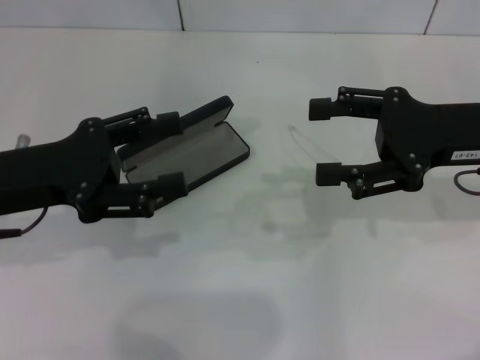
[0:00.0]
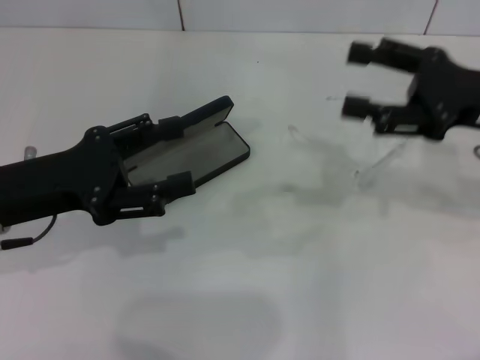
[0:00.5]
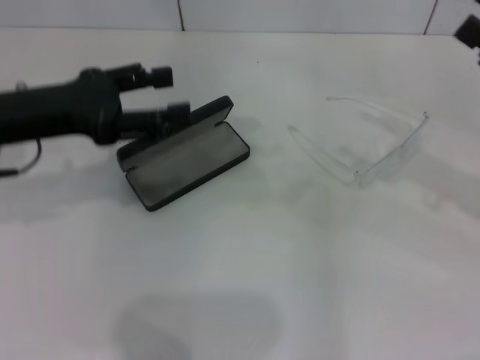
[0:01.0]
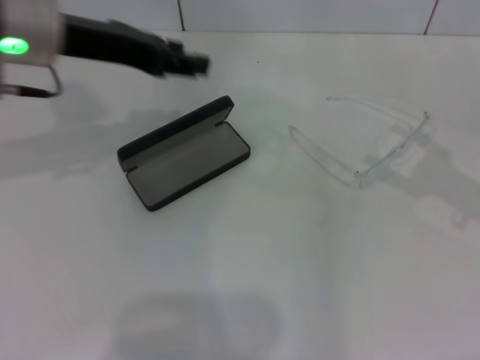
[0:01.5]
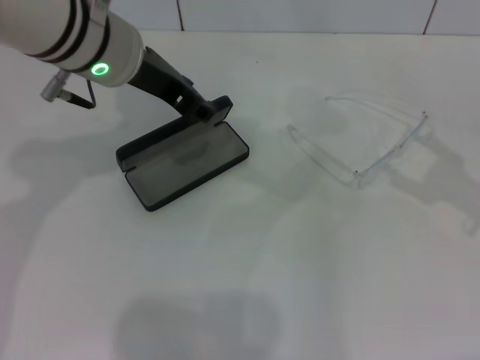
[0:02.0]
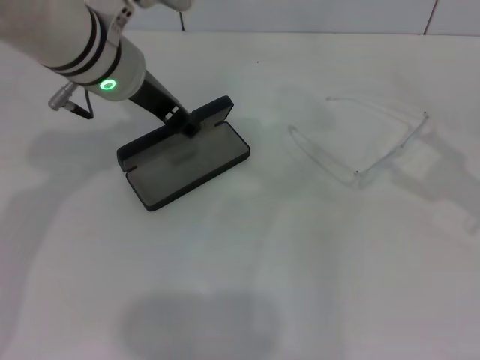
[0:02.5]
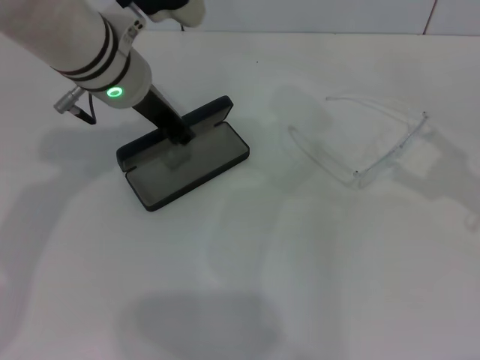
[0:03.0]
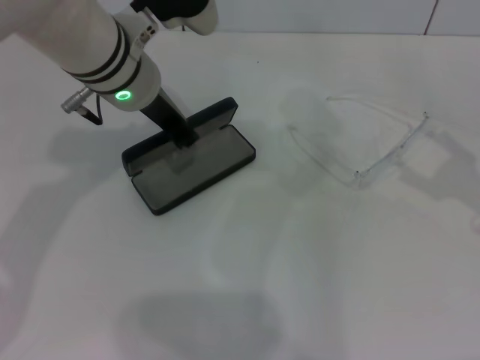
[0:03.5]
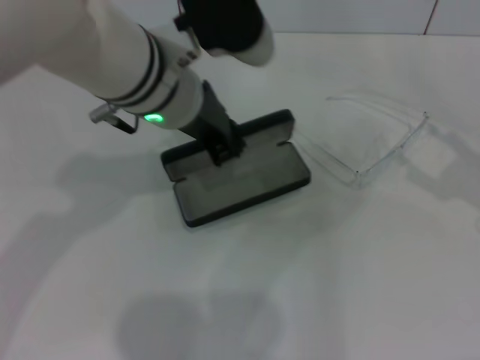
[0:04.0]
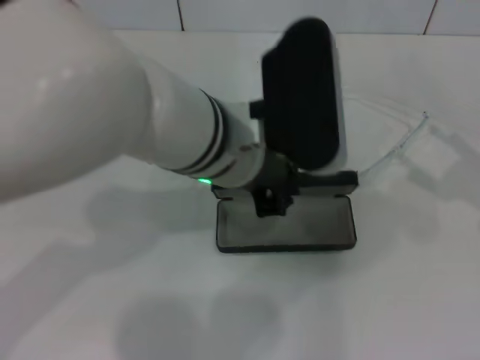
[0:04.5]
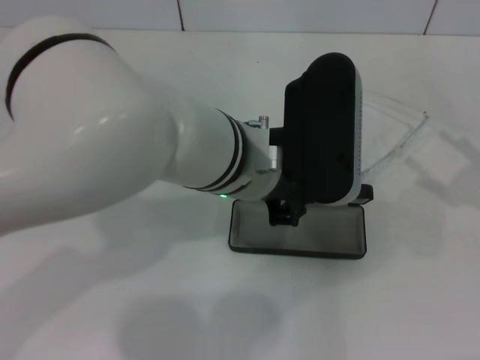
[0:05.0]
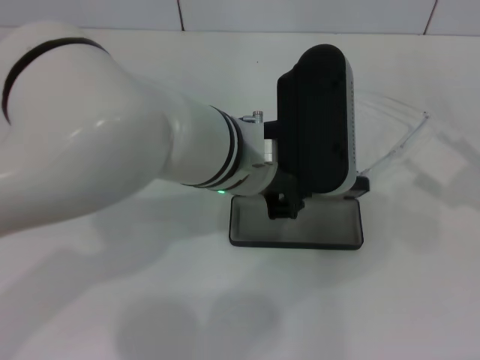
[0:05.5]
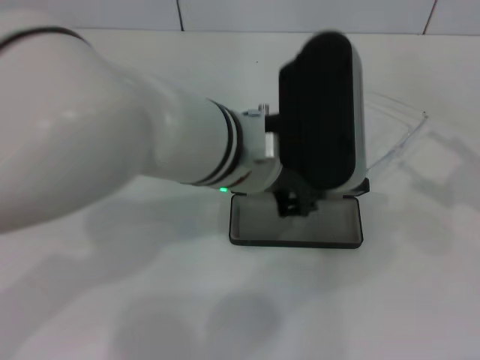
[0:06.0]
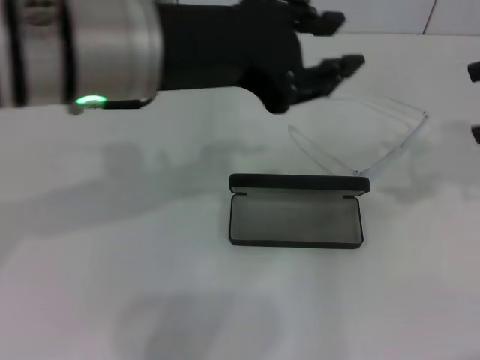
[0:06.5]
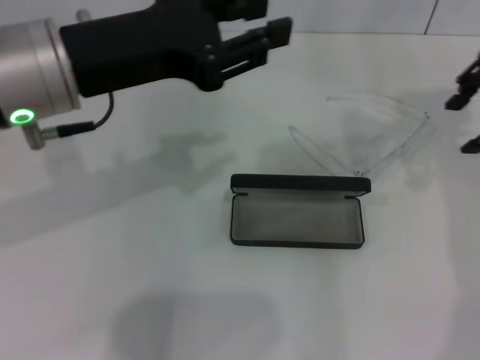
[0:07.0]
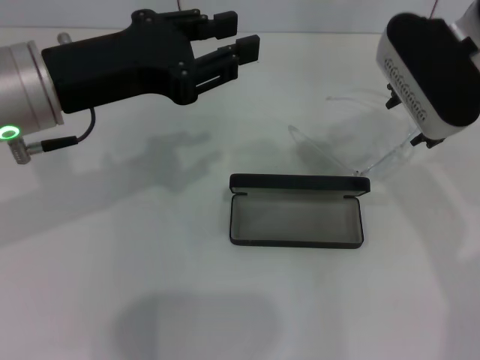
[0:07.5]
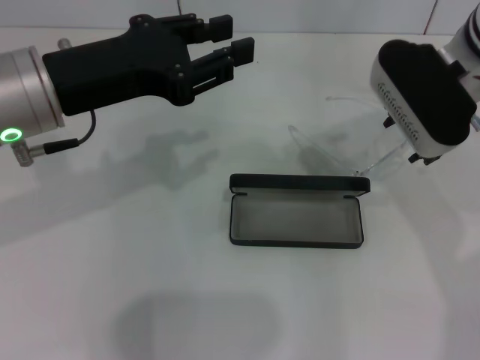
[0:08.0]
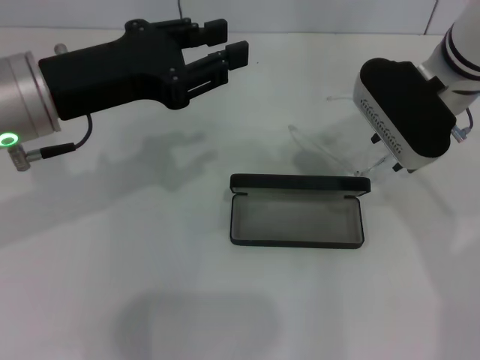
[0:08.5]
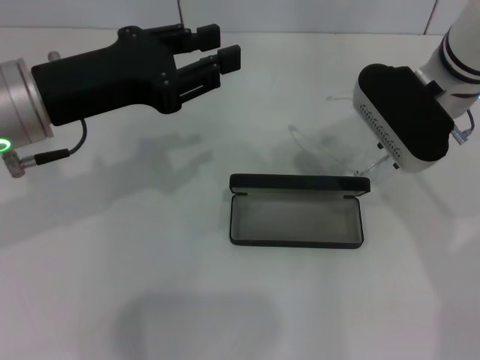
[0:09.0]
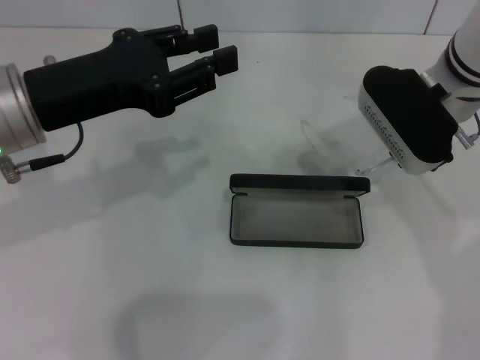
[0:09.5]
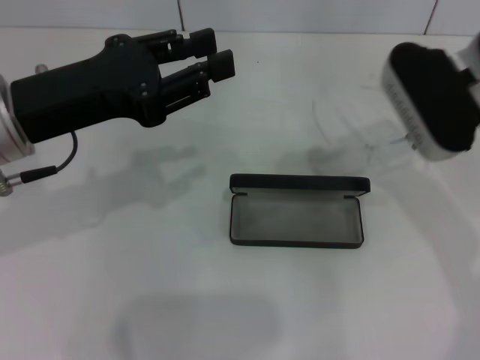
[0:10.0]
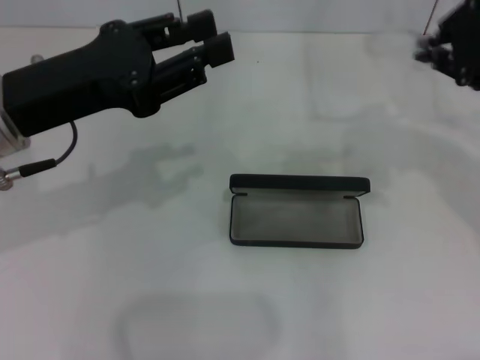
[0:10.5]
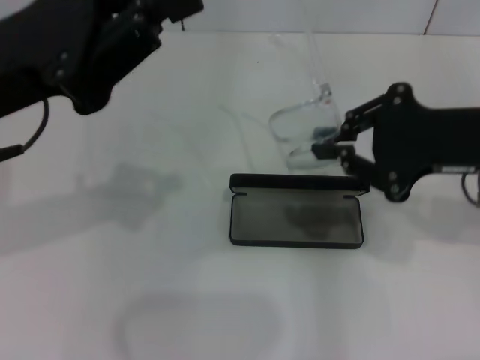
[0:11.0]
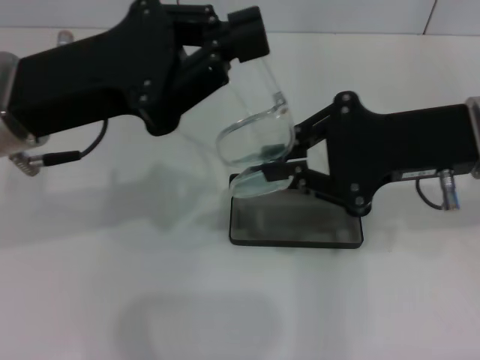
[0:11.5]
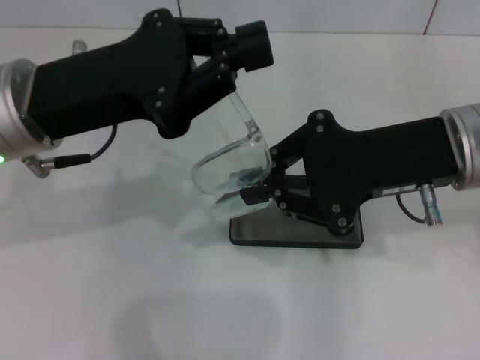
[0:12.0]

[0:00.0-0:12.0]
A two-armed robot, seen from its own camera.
Step, 0:00.0 to 0:03.0: Grab the glasses case with your left hand.
Step, 0:03.5 to 0:05.5: Place the glasses case in the center of the table with your left hand.
Step, 0:06.0 to 0:09.0: Grab the eyeglass frame with your right hand.
0:00.0 to 0:02.0: The left gripper goes roughly 20 cm to the right, forward and upward, and closes, while the right gripper shifts some 15 cm to the right and backward.
0:02.0 to 0:04.0: The left gripper goes some 5 cm to the right, and closes its fingers.
0:04.0 to 0:06.0: The left gripper travels backward and to the right by some 10 cm.
0:06.0 to 0:08.0: The right gripper heads to the left and forward, covering some 25 cm, and closes its fingers, while the left gripper shifts roughly 15 cm to the left.
0:08.0 to 0:10.0: The right gripper closes its fingers.
0:10.0 to 0:12.0: The left gripper closes up, while the right gripper shifts some 10 cm backward.

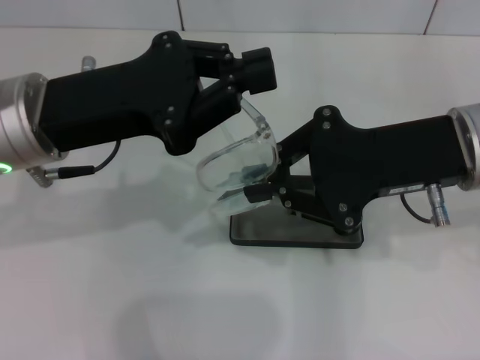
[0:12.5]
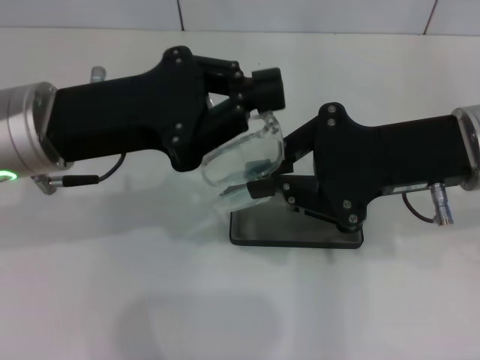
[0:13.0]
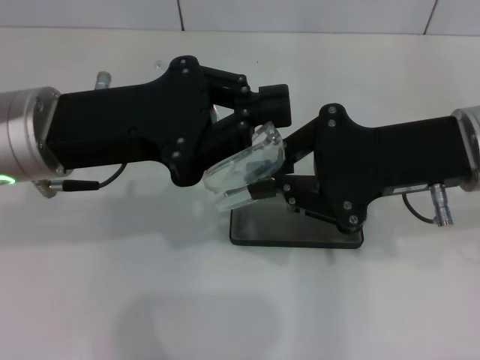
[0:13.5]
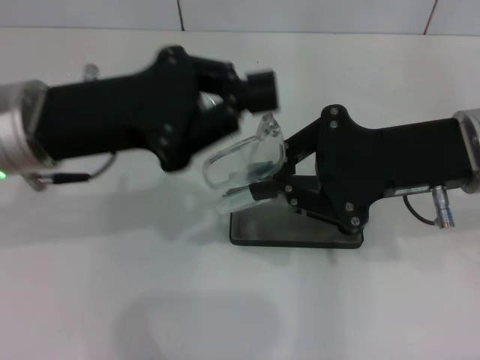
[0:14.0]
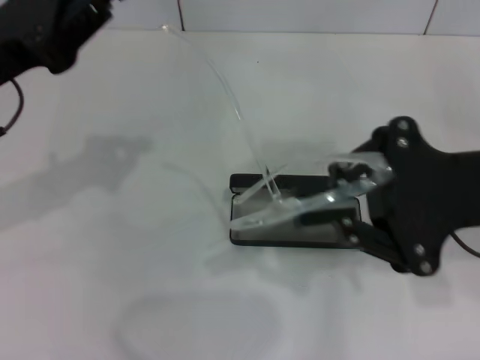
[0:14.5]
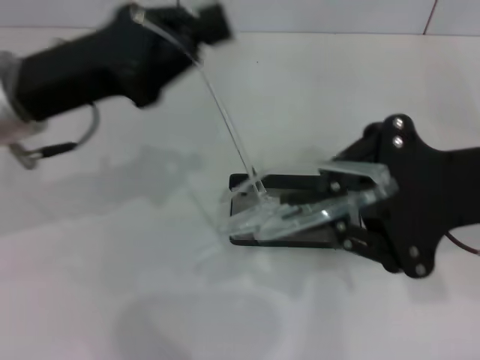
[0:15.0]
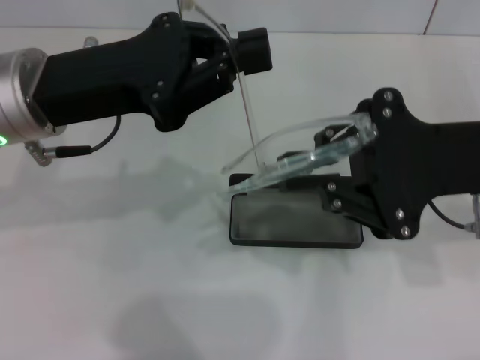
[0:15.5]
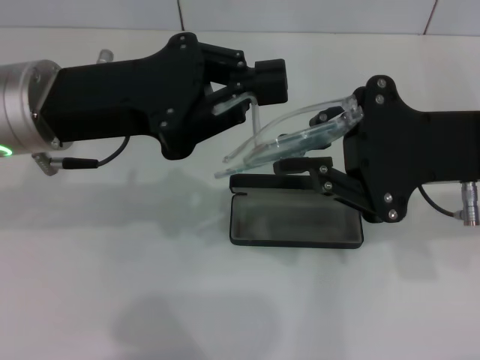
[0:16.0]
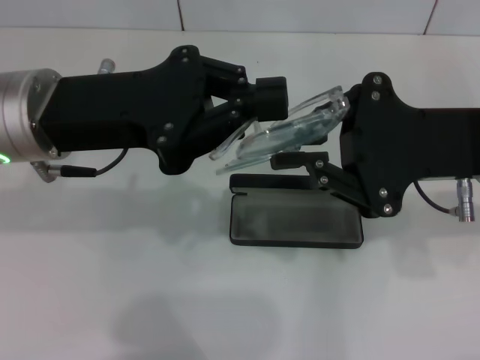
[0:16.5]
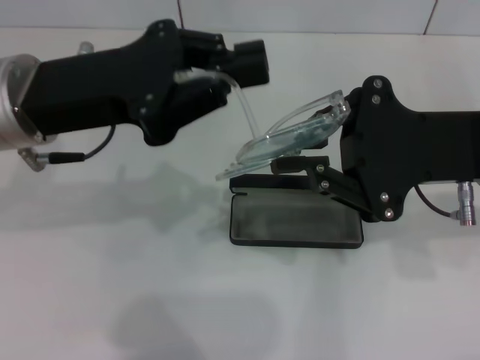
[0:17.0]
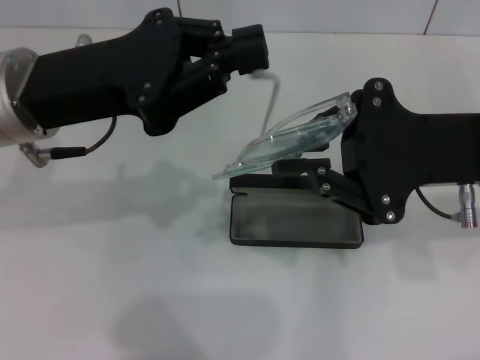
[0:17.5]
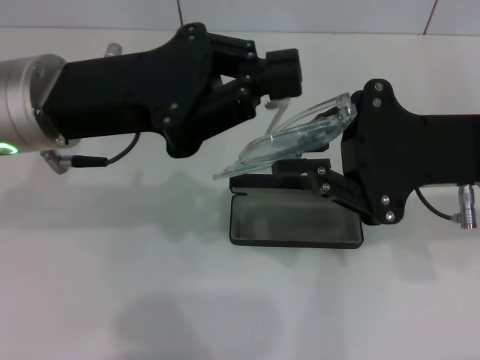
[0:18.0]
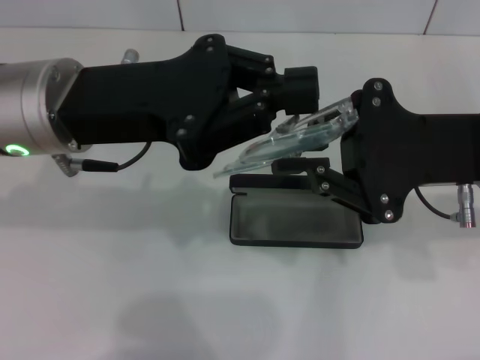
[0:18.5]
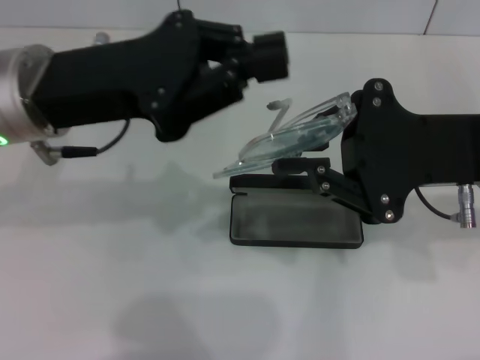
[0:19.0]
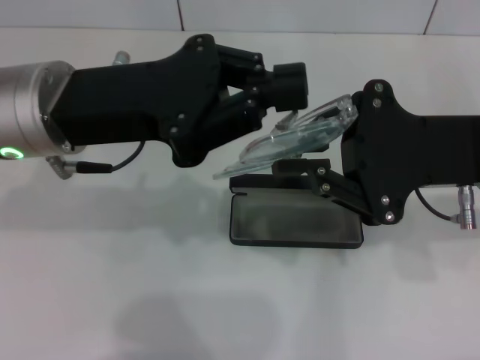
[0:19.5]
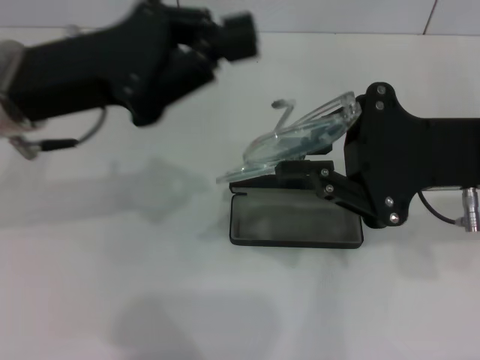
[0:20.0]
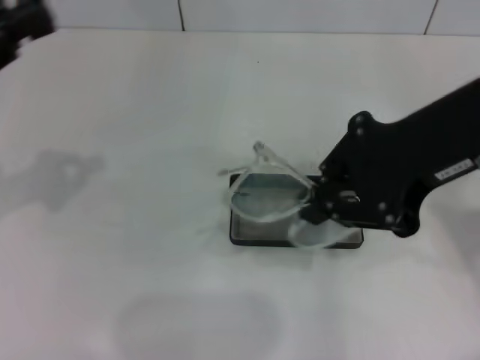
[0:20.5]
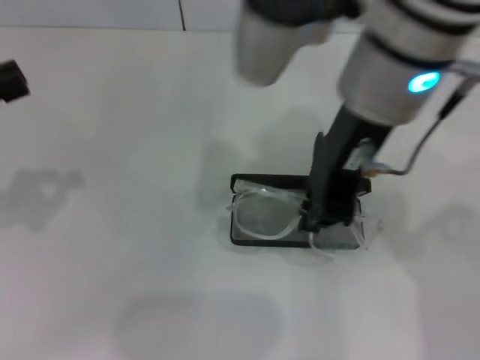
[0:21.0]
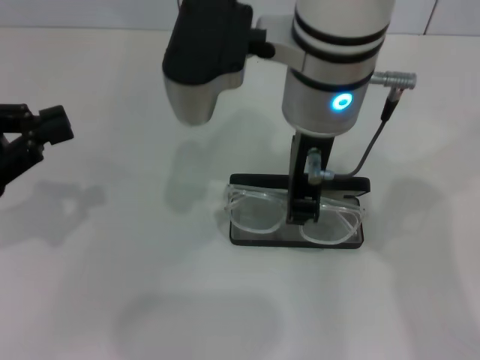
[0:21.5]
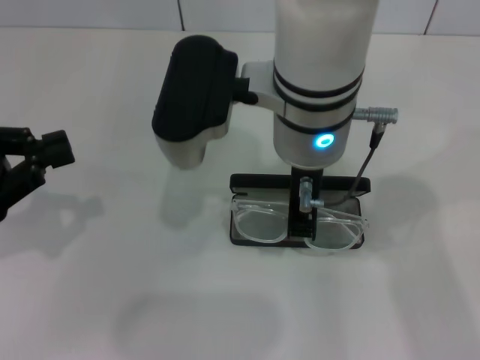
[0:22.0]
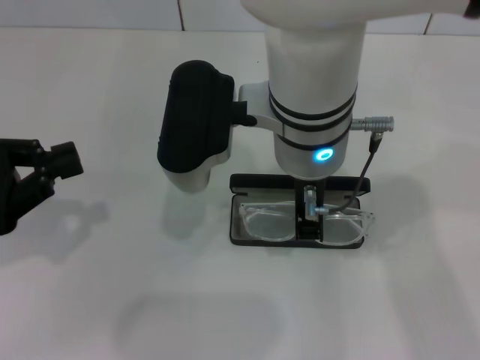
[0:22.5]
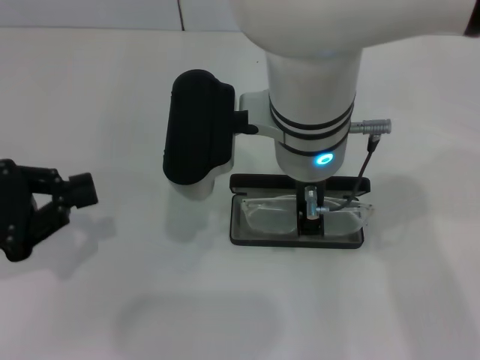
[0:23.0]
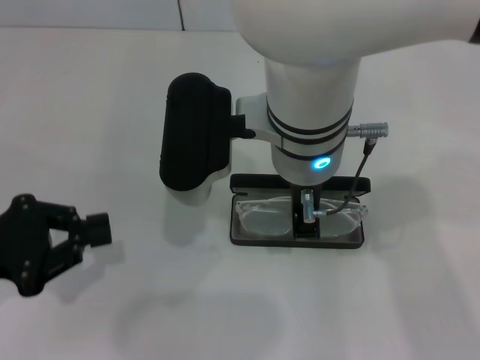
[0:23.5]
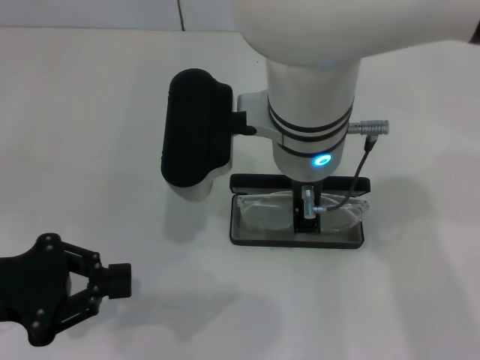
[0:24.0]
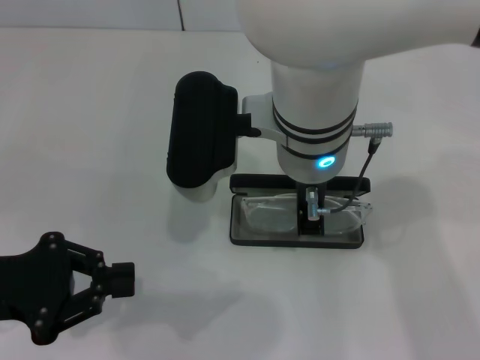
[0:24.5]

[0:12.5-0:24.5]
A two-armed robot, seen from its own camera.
Step, 0:12.5 to 0:19.5: Fold the frame with your left hand.
0:12.5 to 0:14.5: The left gripper heads to the left, covering about 5 cm.
0:14.5 to 0:16.5: The left gripper shifts roughly 5 cm to the right.
0:16.5 to 0:18.5: The grippers stay close to where they were, moving slightly.
0:18.5 to 0:20.5: The right gripper shifts some 10 cm upward; the left gripper heads to the left, covering some 15 cm.
0:20.5 to 0:22.5: The right gripper is displaced to the left by roughly 15 cm. Meanwhile the left gripper shifts about 5 cm downward.
0:22.5 to 0:24.5: The left gripper ends up about 5 cm from where it was.

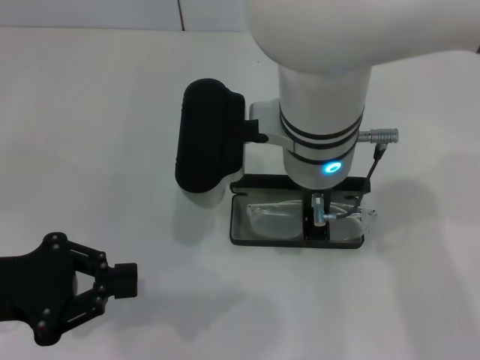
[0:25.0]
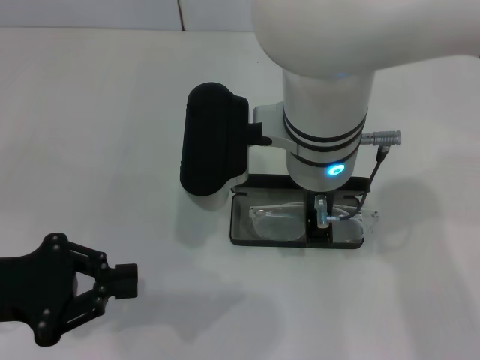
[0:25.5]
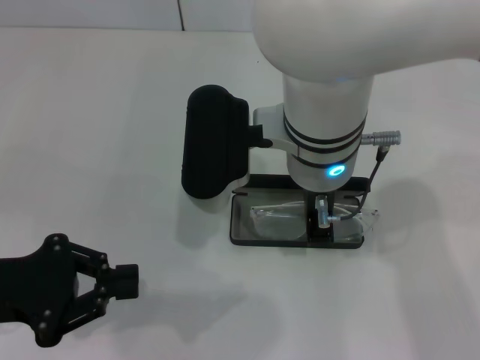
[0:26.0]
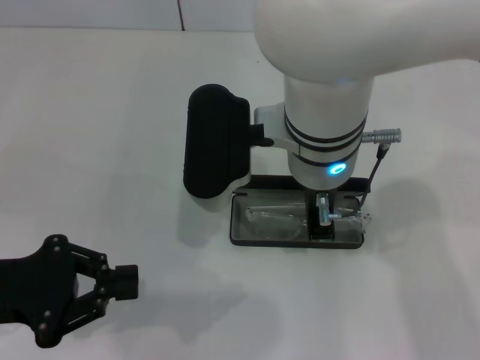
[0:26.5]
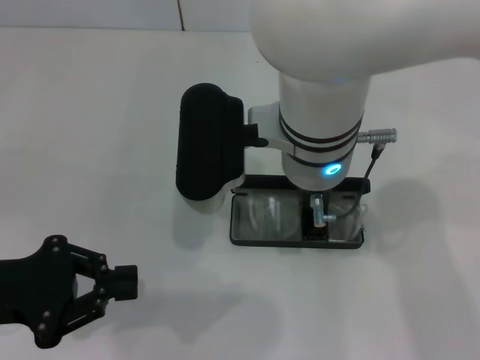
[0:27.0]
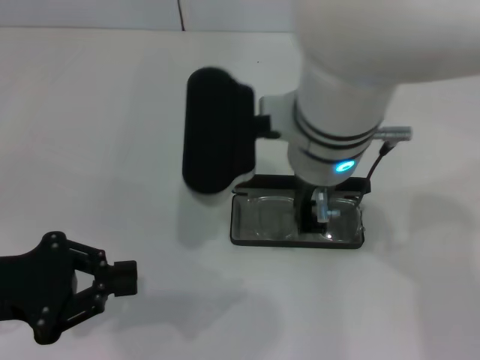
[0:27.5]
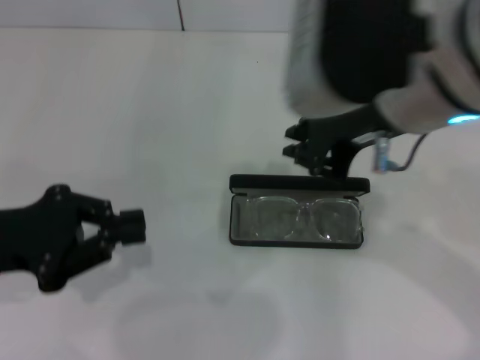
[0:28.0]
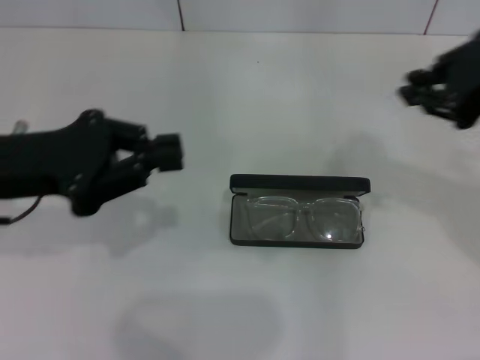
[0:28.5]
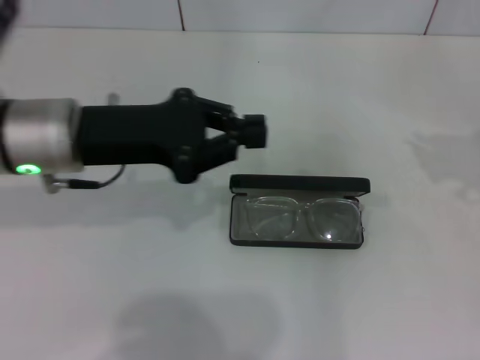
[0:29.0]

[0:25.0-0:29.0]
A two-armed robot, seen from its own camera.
Step, 0:25.0 to 0:27.0: Put the glasses into the case with your right hand.
0:25.0 to 0:27.0: Both grippers stay about where they are.
0:27.0 to 0:29.0: The right gripper moves to the right, roughly 35 cm. The left gripper travels forward and to the right by some 15 cm.
